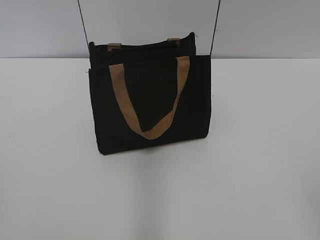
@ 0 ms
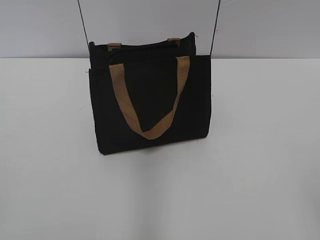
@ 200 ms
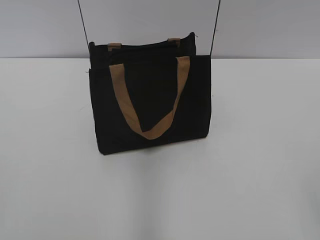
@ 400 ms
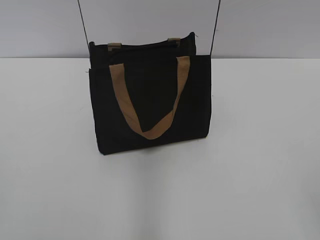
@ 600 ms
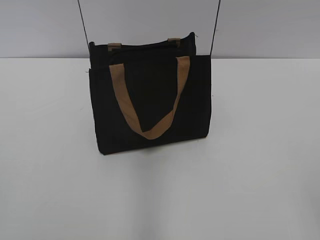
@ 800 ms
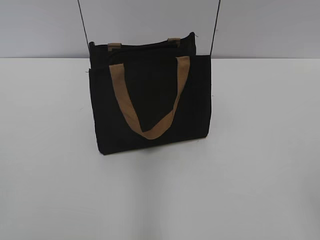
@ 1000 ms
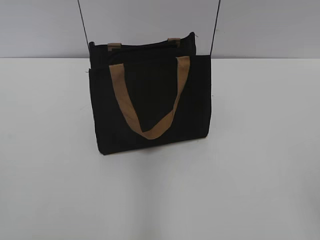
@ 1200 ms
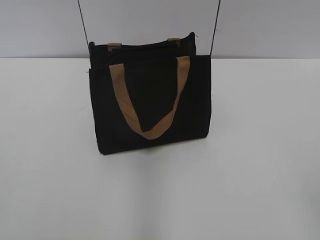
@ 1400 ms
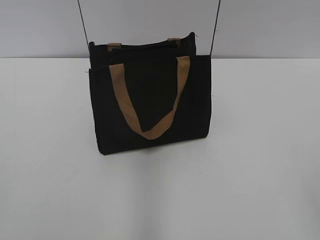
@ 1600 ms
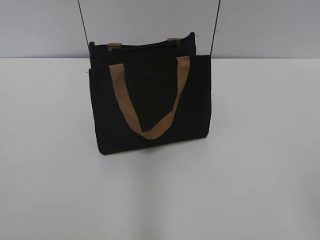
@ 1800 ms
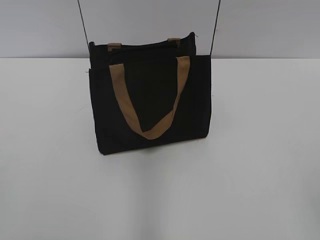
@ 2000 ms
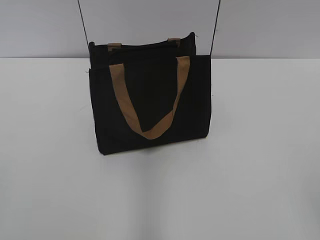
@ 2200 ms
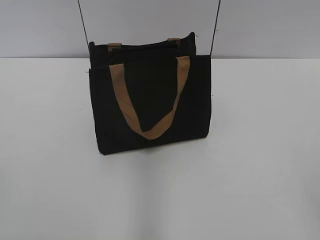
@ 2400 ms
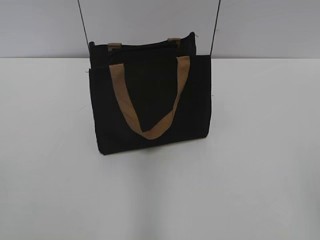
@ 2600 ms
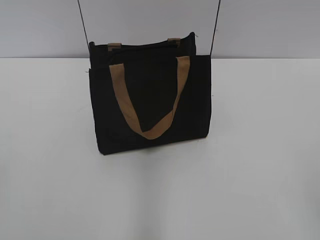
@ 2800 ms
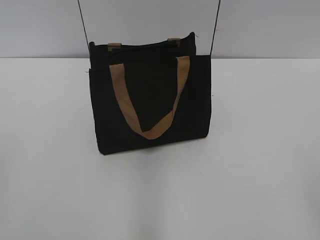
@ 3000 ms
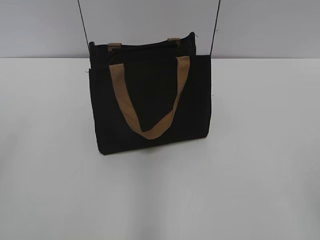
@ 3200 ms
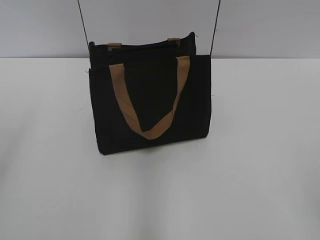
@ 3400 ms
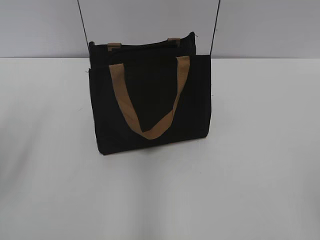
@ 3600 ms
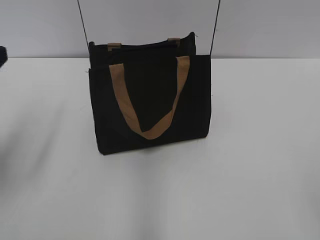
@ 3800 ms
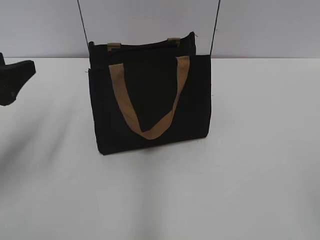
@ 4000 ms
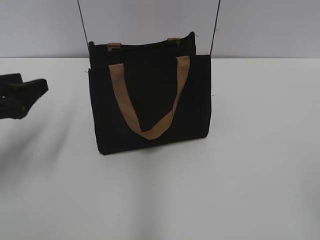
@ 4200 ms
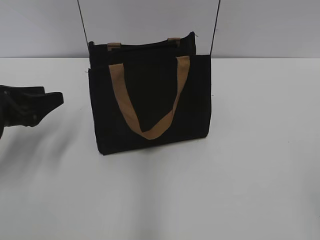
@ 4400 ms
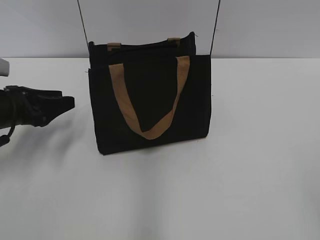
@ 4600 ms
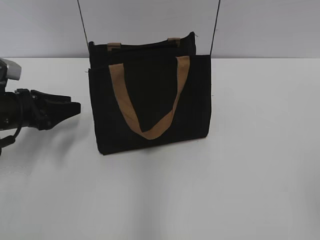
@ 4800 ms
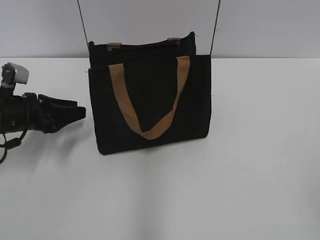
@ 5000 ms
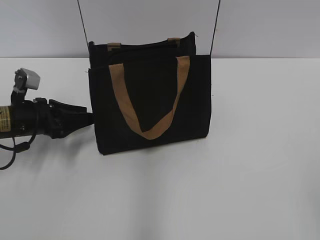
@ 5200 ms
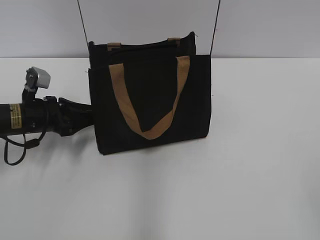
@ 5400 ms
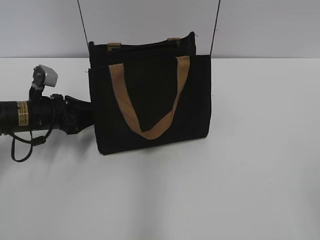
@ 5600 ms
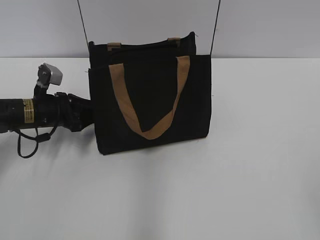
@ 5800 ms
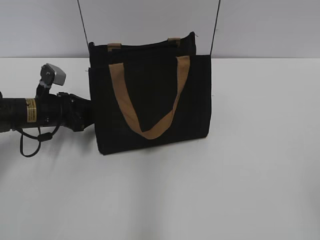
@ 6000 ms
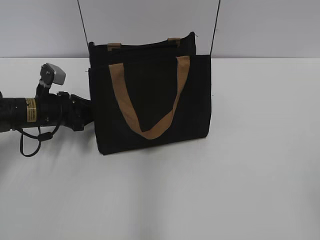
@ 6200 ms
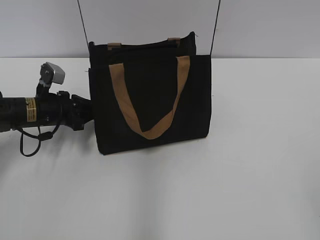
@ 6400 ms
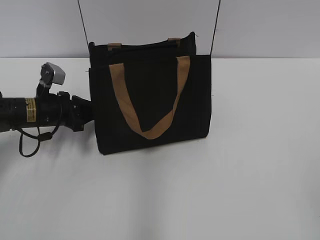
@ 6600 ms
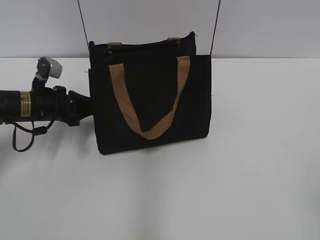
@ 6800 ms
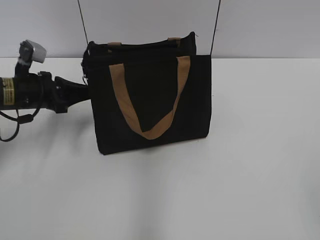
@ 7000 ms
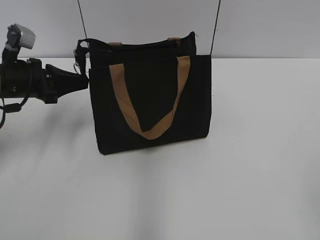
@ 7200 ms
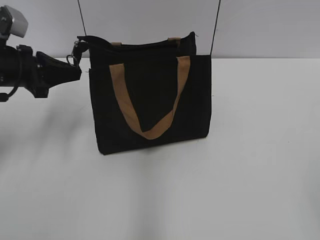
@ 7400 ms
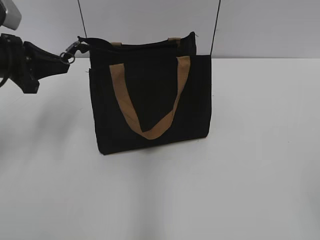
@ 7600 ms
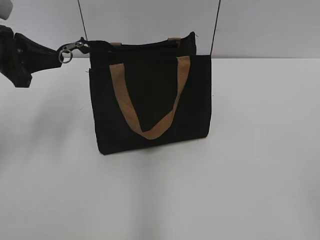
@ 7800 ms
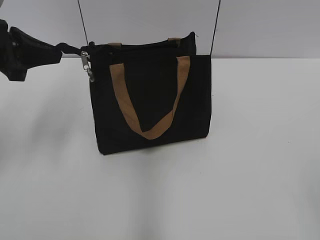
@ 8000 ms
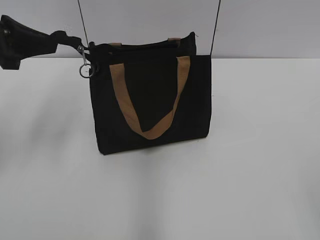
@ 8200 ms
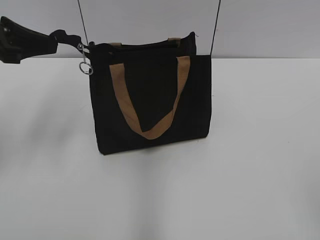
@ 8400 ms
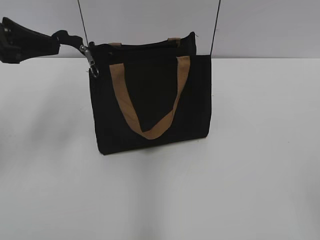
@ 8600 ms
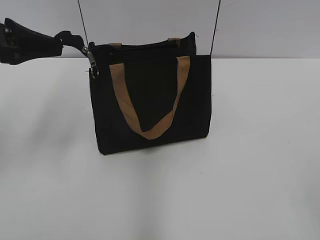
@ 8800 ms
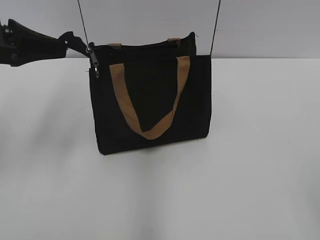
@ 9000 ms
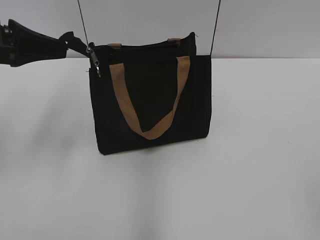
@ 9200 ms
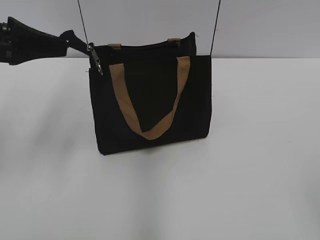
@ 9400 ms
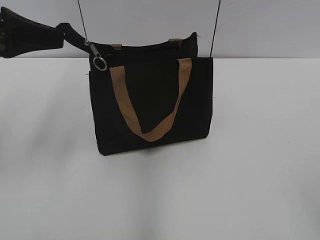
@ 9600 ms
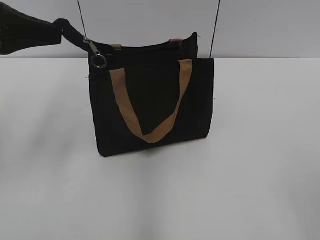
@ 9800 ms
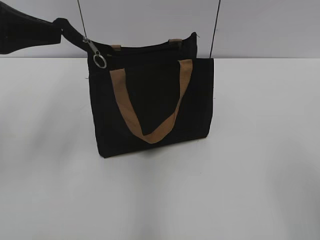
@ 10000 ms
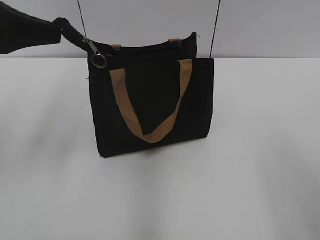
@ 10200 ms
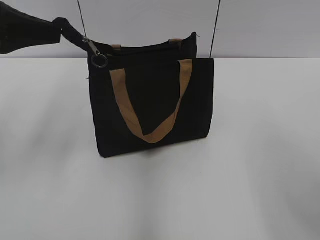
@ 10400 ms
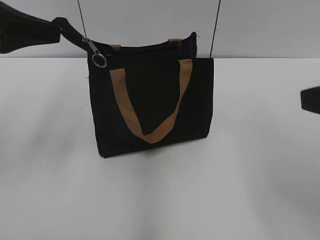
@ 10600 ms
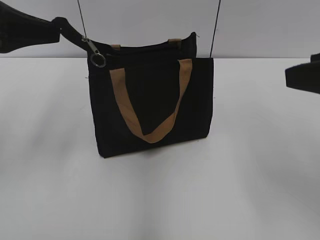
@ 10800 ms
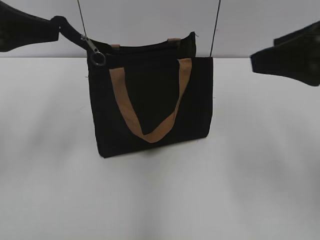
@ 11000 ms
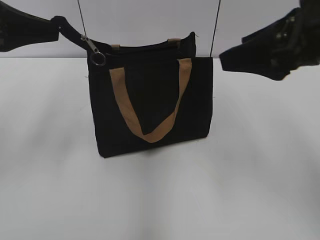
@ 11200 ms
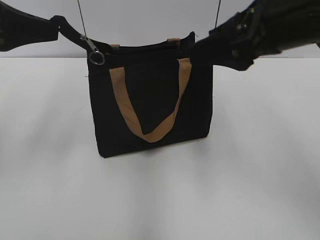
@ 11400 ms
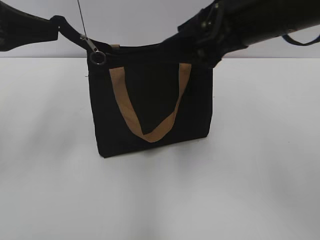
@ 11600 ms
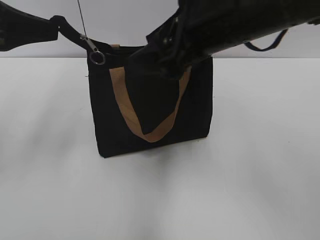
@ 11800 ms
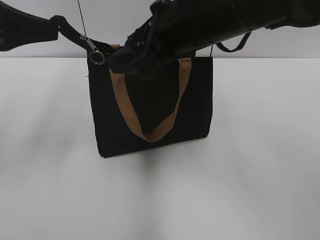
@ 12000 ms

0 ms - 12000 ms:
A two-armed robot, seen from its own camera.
3000 ms - 4400 ms: The left gripper travels forward and downward by about 30 cm.
4400 ms - 6000 ms: The left gripper moves forward, downward and to the right, about 15 cm.
6000 ms - 7600 ms: The left gripper is displaced upward by approximately 15 cm, and closes up.
7600 ms - 9000 ms: The left gripper heads upward, covering approximately 5 cm.
9000 ms - 10400 ms: The right gripper shifts roughly 10 cm forward.
10400 ms - 12000 ms: The right gripper shifts approximately 25 cm to the left and forward.

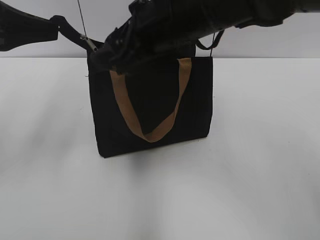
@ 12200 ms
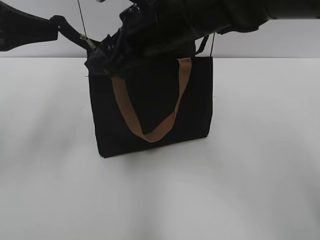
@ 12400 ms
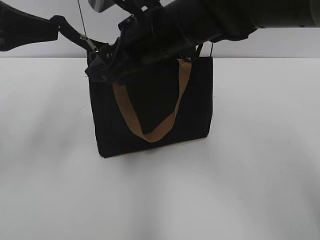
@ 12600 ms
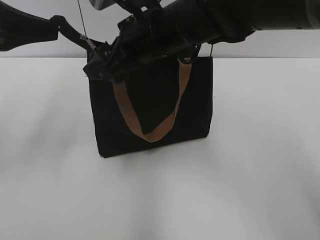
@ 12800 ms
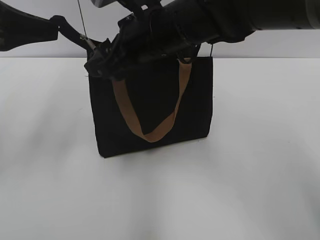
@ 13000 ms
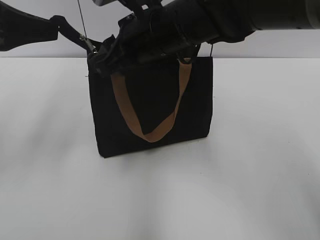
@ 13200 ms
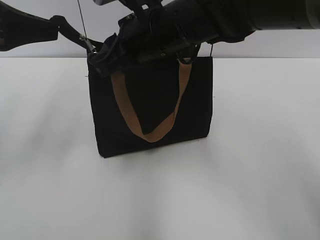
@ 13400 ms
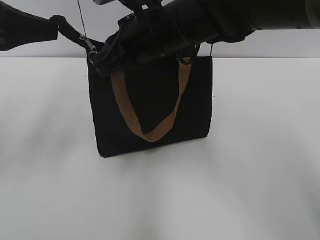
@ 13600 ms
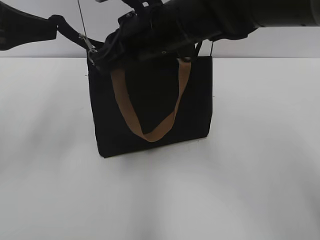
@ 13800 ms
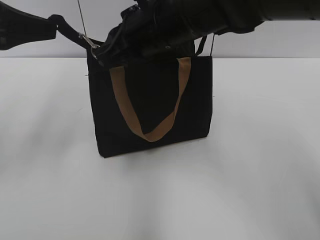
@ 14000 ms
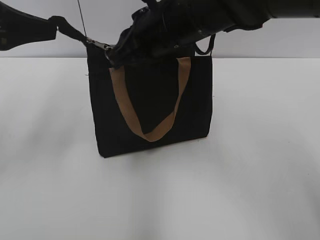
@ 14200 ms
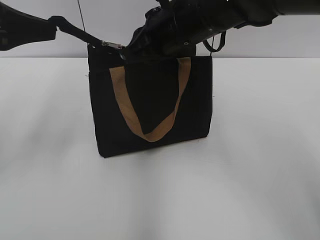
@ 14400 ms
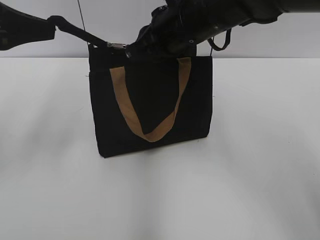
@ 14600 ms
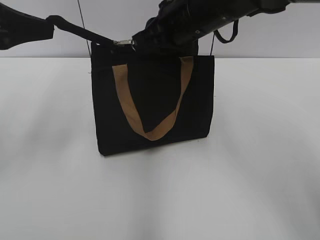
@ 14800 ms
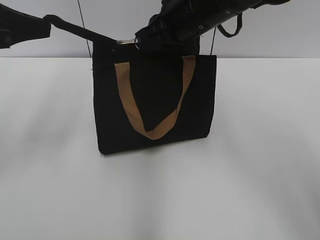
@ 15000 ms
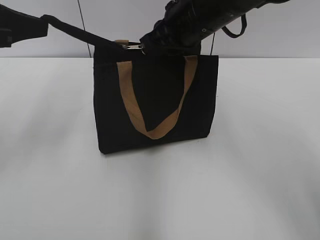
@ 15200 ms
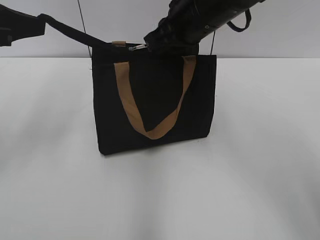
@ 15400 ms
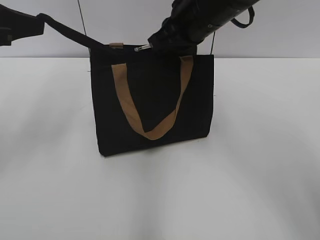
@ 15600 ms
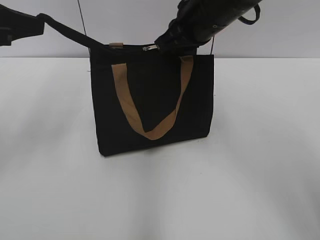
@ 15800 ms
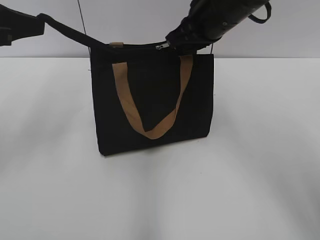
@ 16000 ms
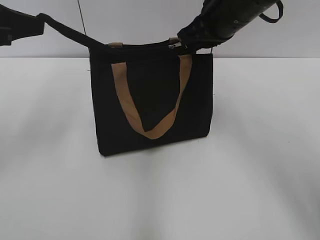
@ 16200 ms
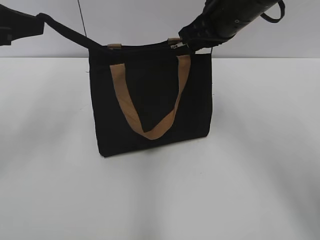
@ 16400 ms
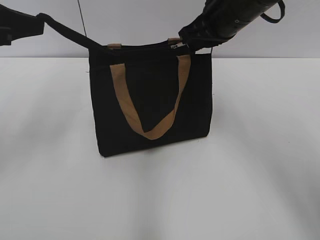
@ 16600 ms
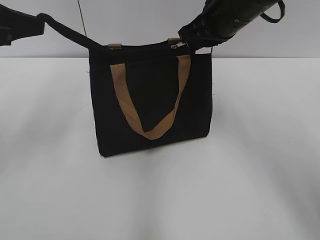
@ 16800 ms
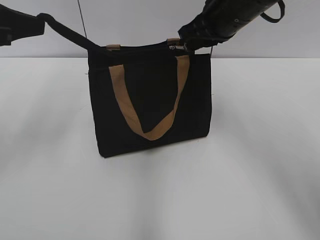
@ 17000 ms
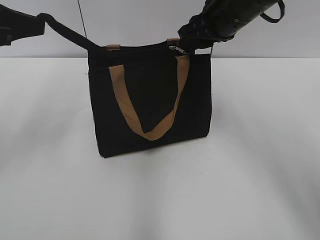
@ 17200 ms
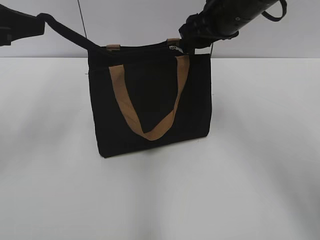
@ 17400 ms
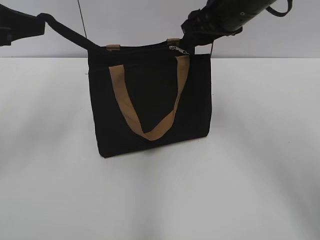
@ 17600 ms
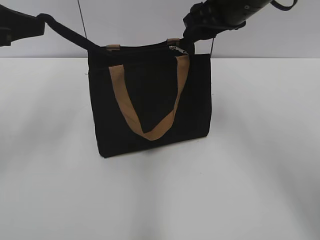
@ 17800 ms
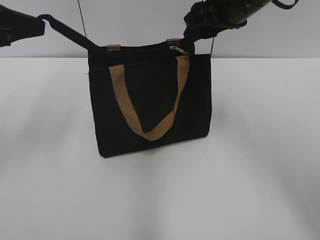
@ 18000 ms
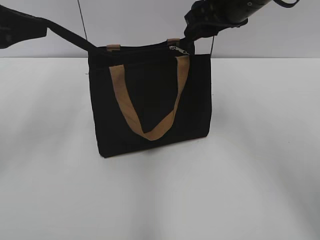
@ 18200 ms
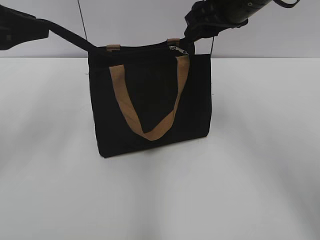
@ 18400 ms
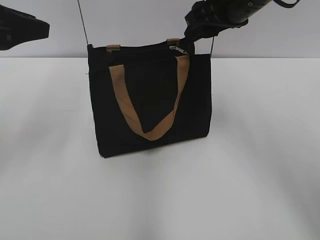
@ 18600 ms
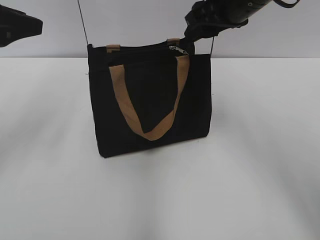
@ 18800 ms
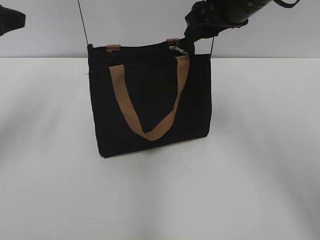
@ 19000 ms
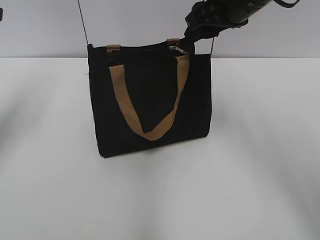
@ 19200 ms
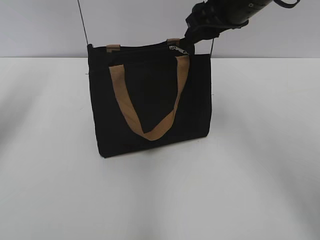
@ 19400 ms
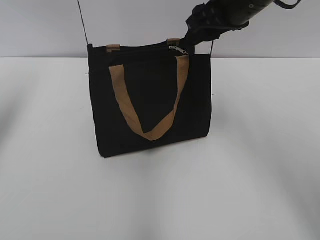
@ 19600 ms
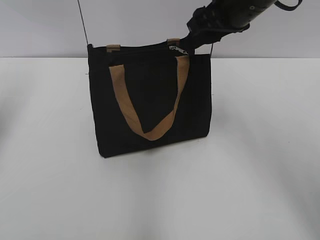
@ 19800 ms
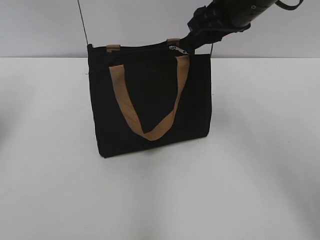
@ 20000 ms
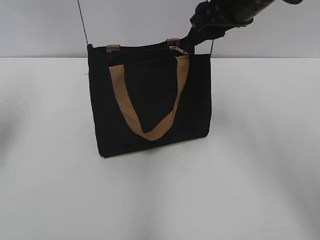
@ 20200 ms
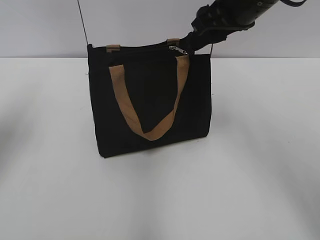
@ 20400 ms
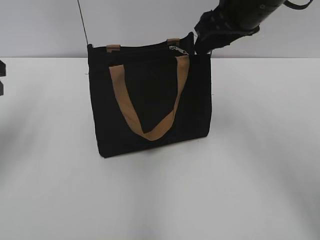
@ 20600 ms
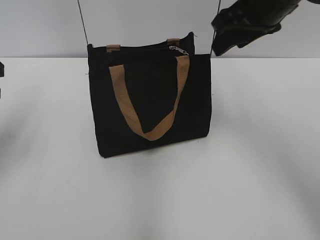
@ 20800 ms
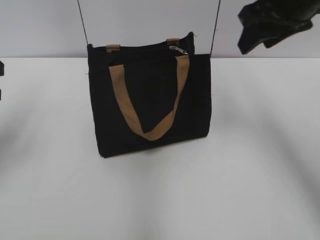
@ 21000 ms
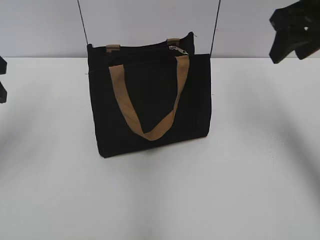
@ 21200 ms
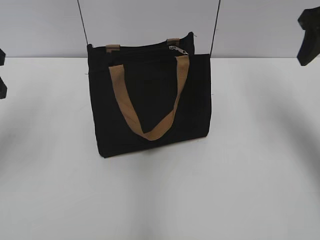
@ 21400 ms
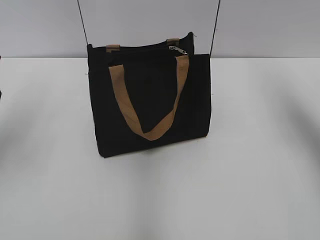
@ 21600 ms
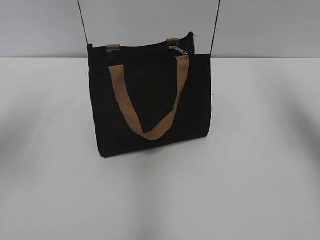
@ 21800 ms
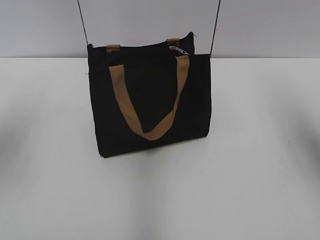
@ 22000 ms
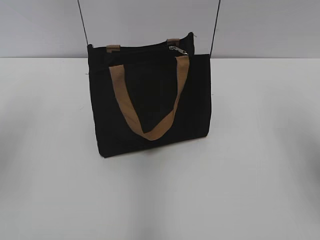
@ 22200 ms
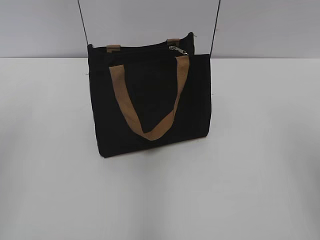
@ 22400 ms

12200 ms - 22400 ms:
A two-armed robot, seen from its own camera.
Step, 12200 ms - 18000 ms: Zip up the bag with your right hand.
12200 ms - 13600 ms: The right gripper closes.
13600 ms - 15200 ms: The right gripper heads to the right, covering about 5 cm.
15200 ms - 16600 ms: The right gripper is displaced to the right by roughly 5 cm.
16600 ms - 18000 ms: The right gripper opens.
18000 ms - 19400 ms: The left gripper heads to the left, covering approximately 5 cm, and opens.
19400 ms - 21000 ms: The left gripper moves some 5 cm; the right gripper is displaced to the right by roughly 5 cm.
21000 ms - 22400 ms: The right gripper goes roughly 25 cm backward and to the right.
